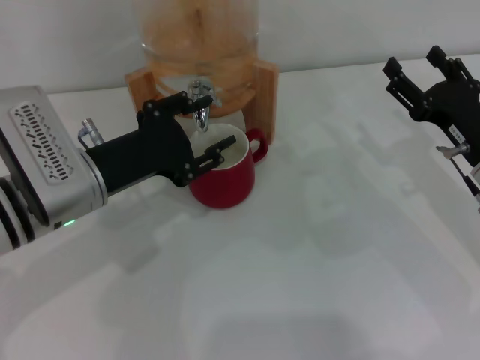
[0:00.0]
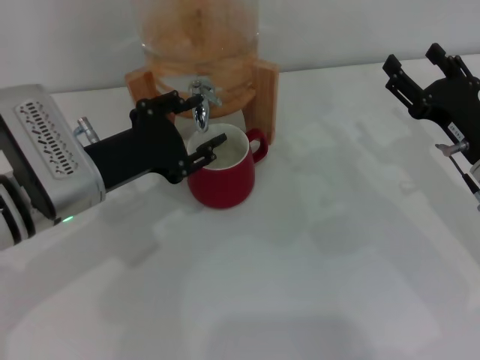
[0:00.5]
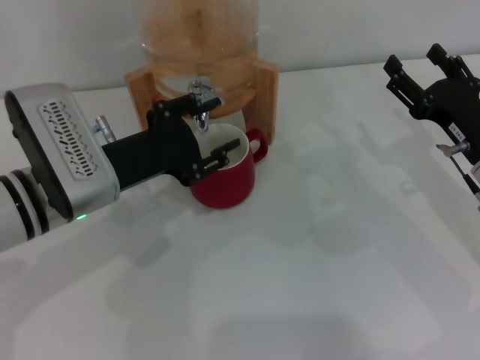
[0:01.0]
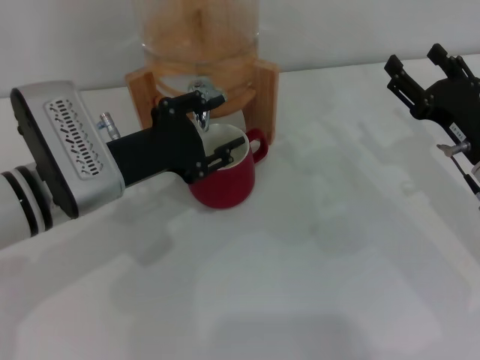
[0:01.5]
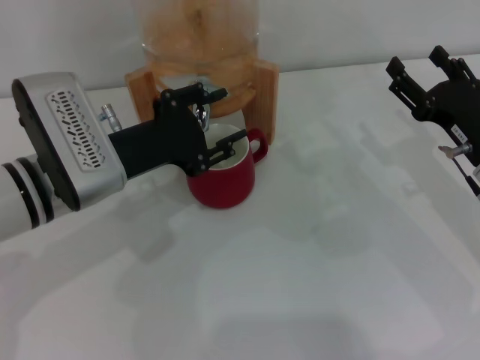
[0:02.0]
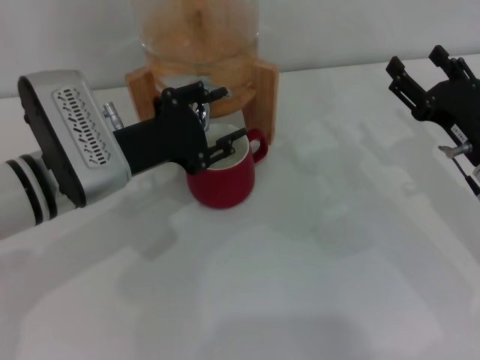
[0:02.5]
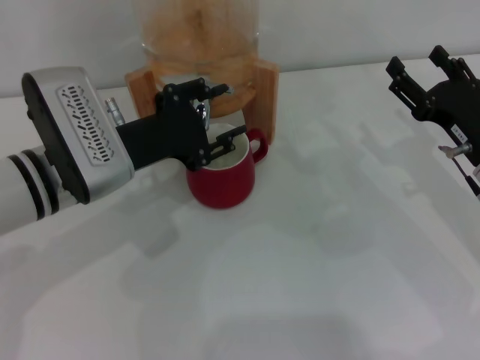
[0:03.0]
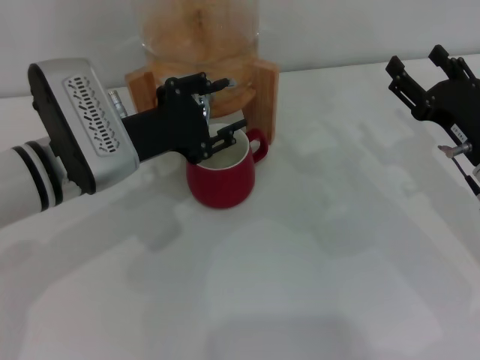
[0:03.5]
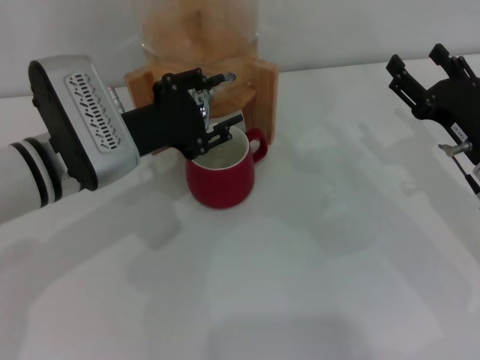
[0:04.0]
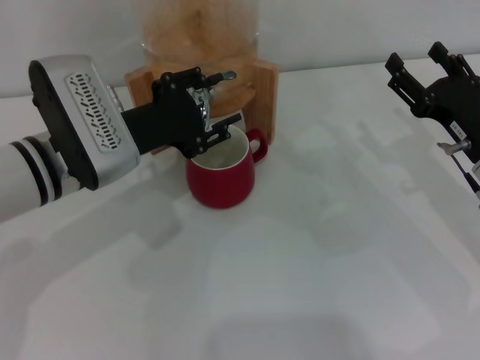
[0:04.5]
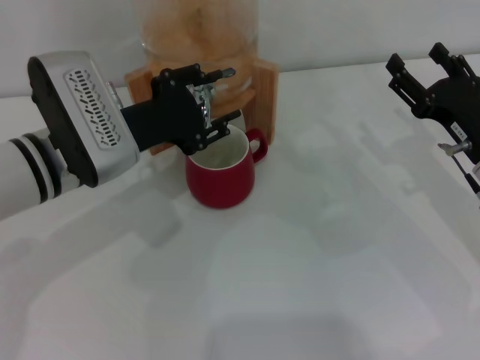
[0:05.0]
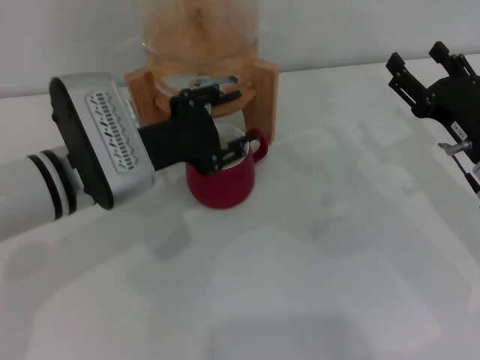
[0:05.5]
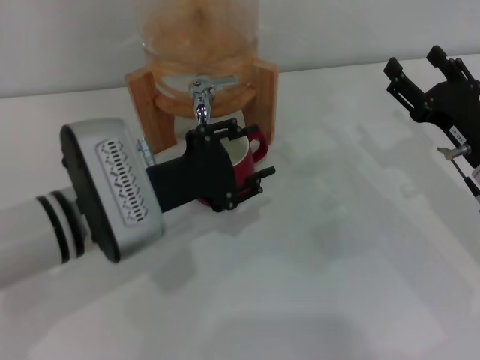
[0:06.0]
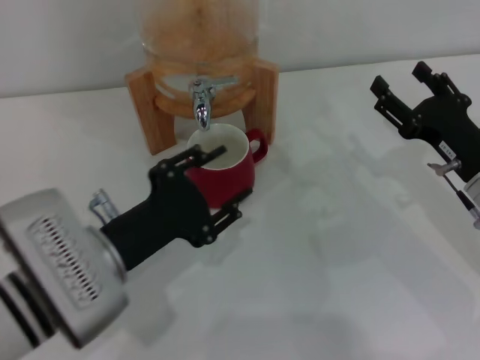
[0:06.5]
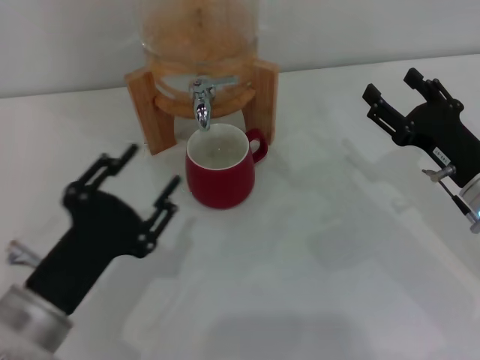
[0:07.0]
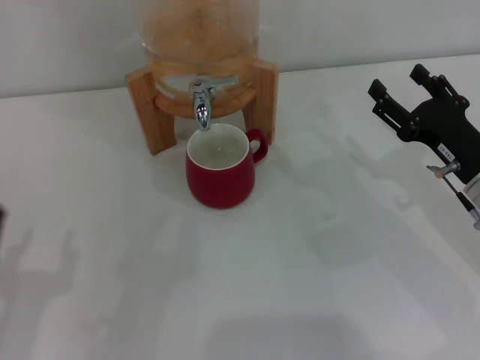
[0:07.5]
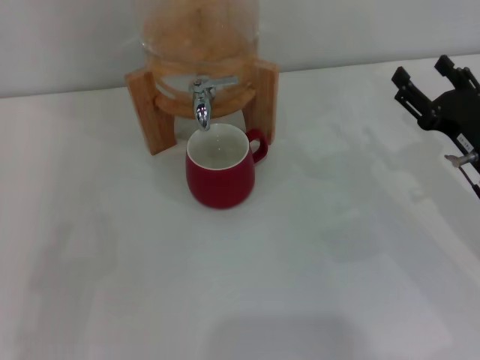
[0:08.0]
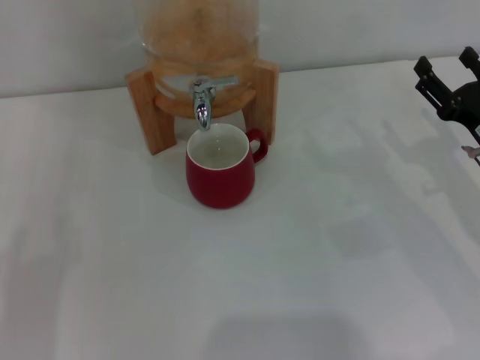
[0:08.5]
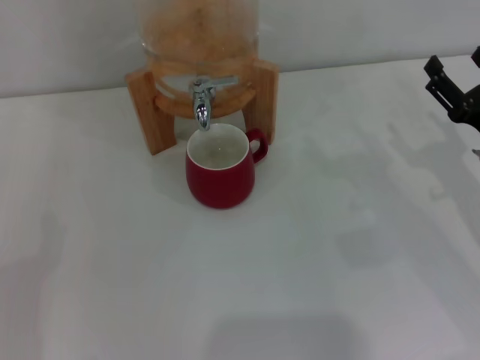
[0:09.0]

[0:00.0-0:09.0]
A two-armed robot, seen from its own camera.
Task of the whole recording: the right gripper pick up the red cup and place it horizontally under the faucet, the left gripper turn on the faucet to fill the cup, and then turn off the faucet.
Step, 0:00.0 to 0:06.0: Close the dispenser valve with the left gripper.
0:00.0 to 0:04.5: The grippers make only small movements.
0:04.5 to 0:07.0: The left gripper goes some 15 cm backward.
0:07.0 to 0:09.0: The left gripper heads to the left, covering roughly 15 cm, and opens.

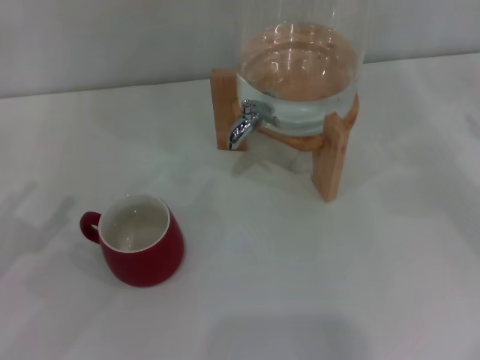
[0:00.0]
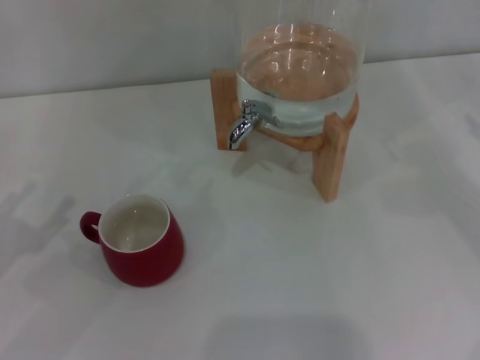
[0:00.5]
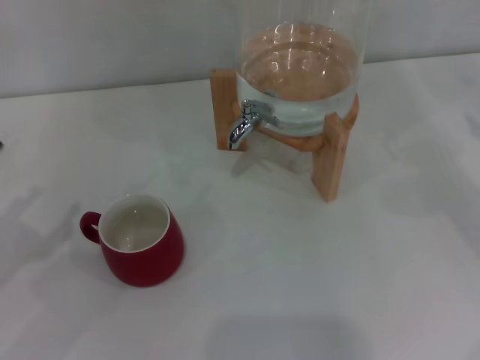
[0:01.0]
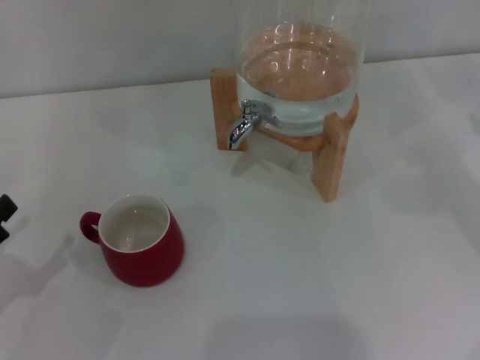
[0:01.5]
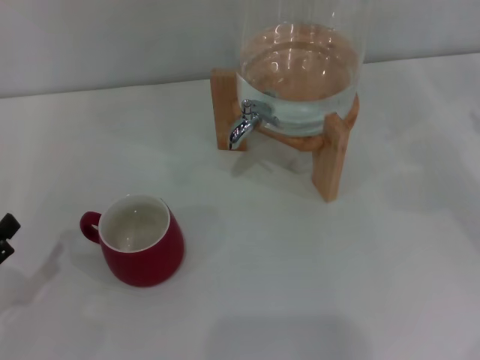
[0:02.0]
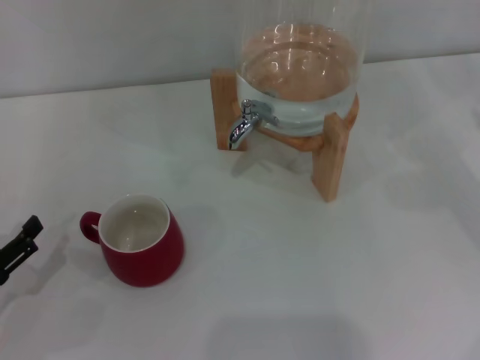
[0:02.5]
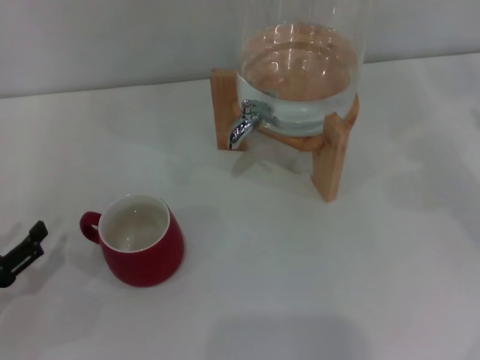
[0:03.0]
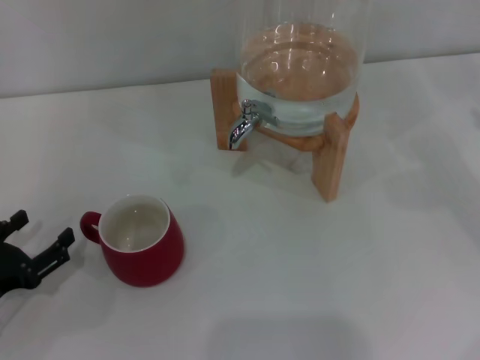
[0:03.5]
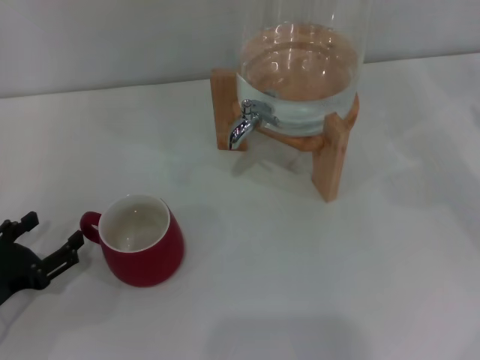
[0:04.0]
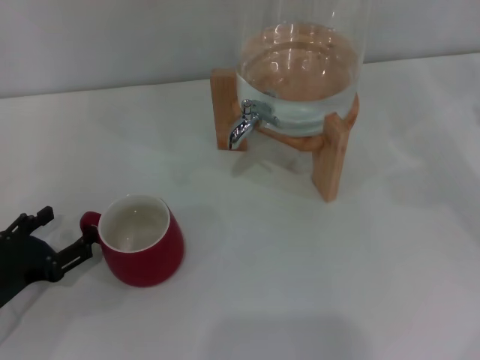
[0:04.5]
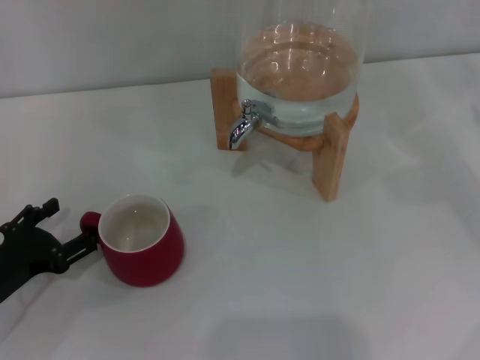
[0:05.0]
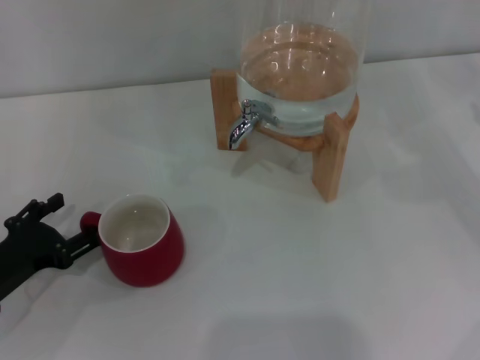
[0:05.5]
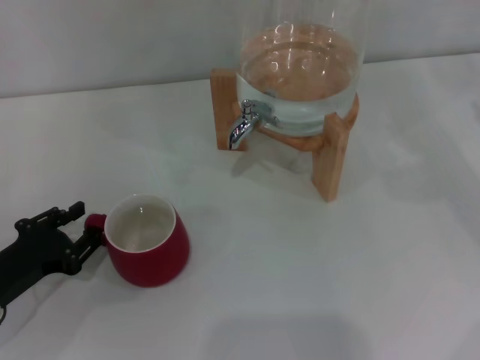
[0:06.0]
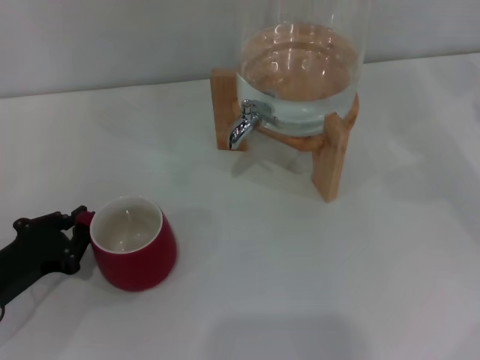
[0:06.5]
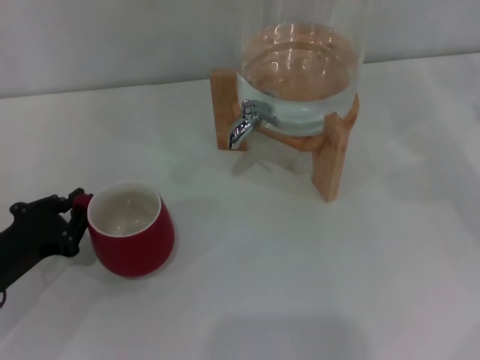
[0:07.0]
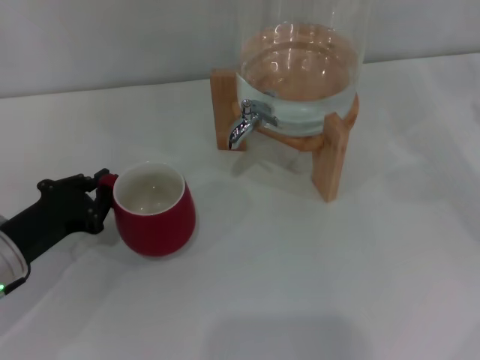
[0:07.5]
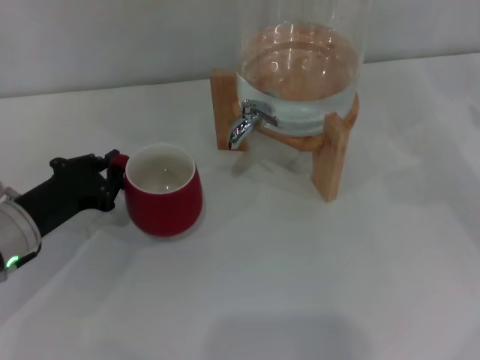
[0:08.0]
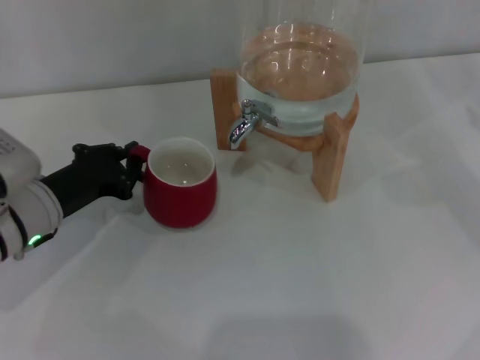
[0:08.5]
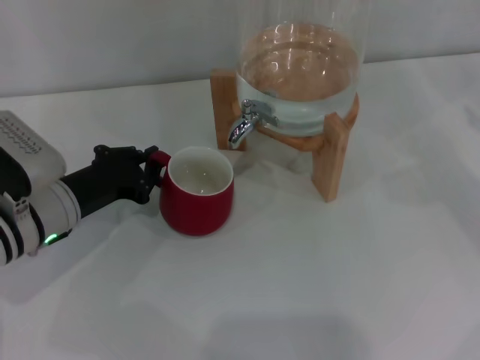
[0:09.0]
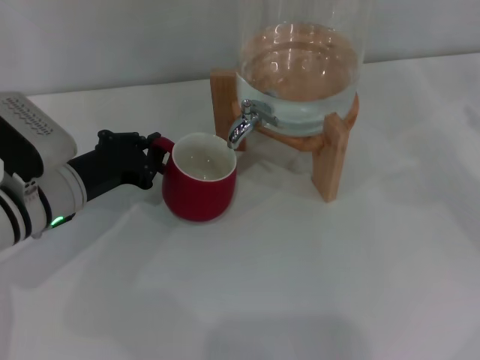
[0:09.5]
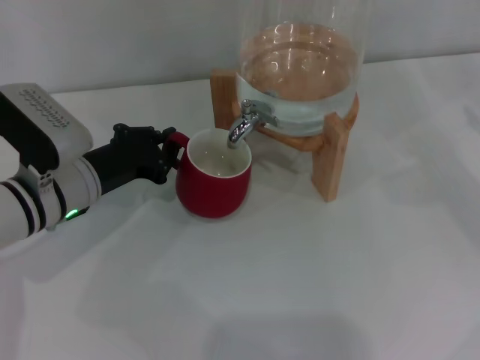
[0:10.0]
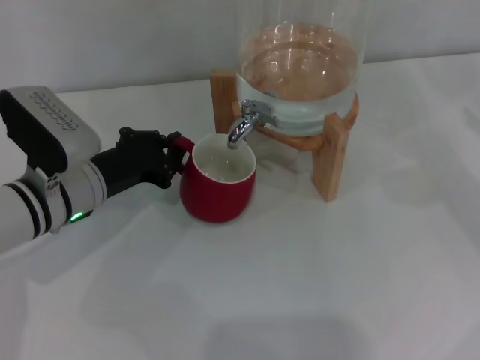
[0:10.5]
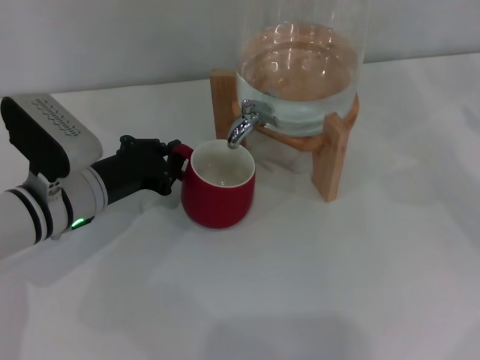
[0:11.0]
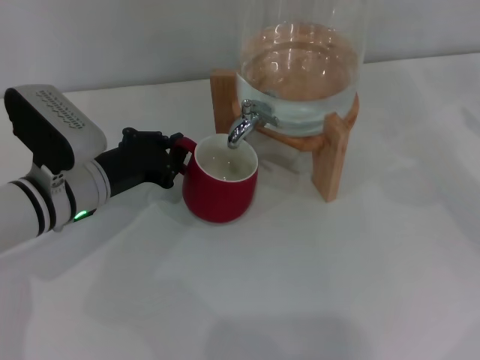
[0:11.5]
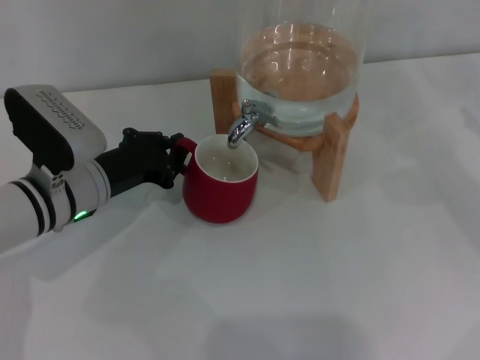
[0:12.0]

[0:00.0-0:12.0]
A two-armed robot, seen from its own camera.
Task of the whole recording: the left gripper pick up the red cup and place it horizontally under the faucet, the right gripper turn on the faucet to fill the cup, and then turn off the faucet.
0:02.0 to 0:04.0: The left gripper shifts by about 5 cm.
0:04.0 to 0:06.0: The grippers stay close to where they were, moving slightly.
0:06.0 to 0:08.0: The left gripper heads forward, covering roughly 5 cm, and closes its fingers.
0:08.0 to 0:10.0: The left gripper goes some 5 cm to the right.
0:10.0 to 0:12.0: Neither gripper changes place.

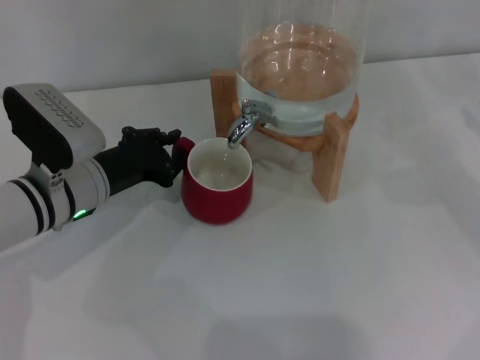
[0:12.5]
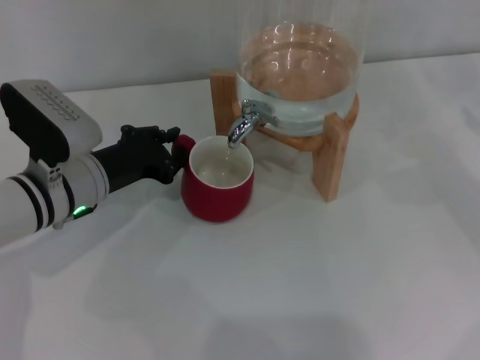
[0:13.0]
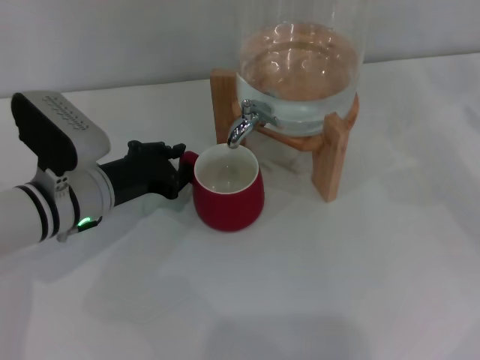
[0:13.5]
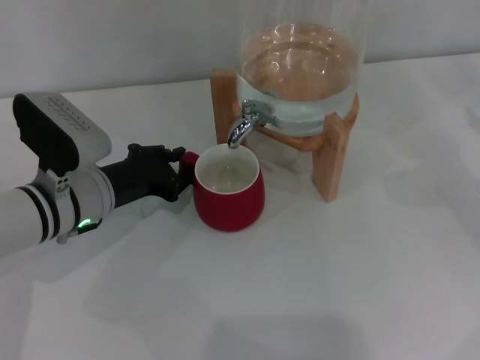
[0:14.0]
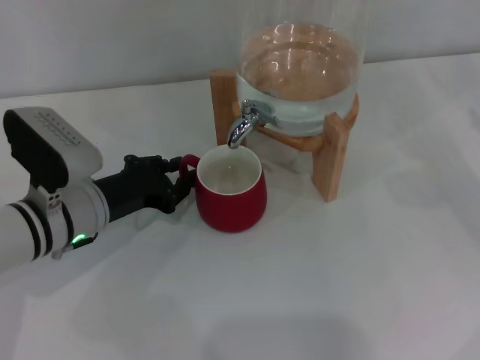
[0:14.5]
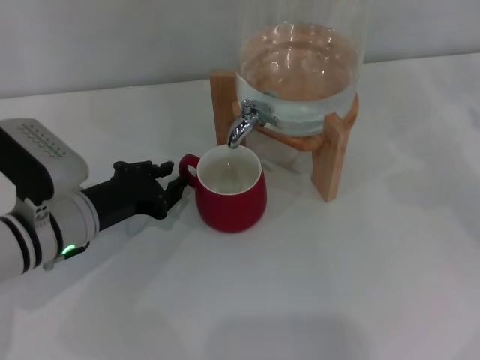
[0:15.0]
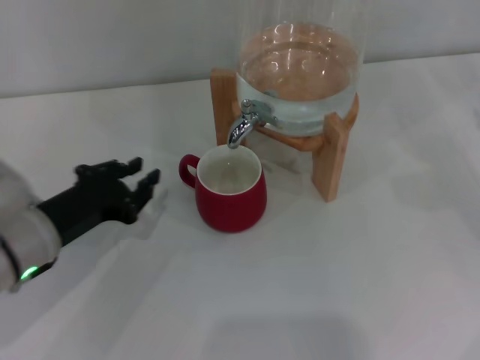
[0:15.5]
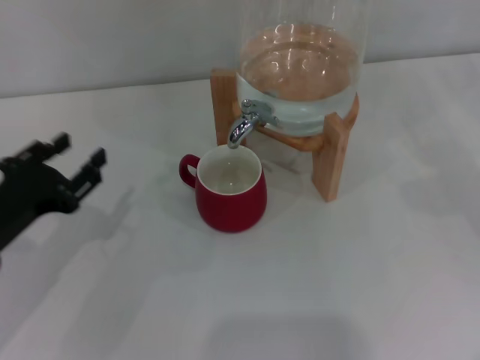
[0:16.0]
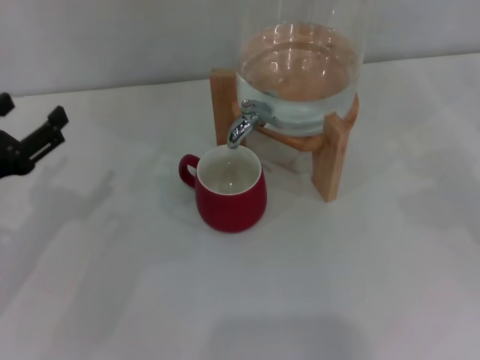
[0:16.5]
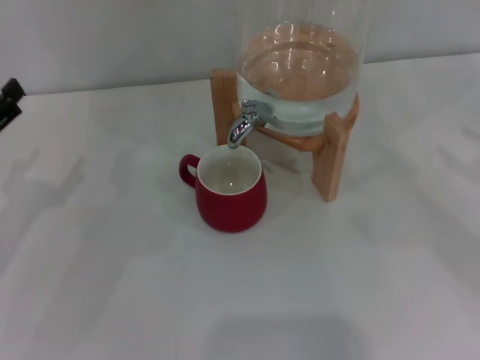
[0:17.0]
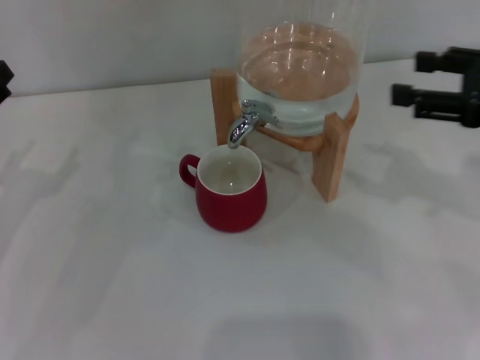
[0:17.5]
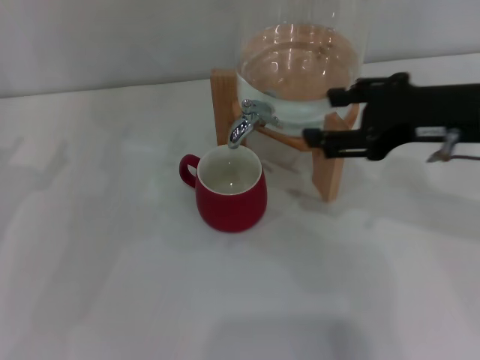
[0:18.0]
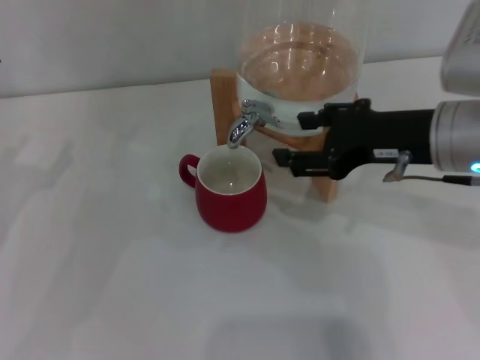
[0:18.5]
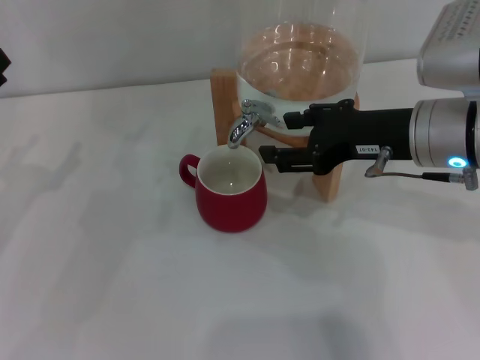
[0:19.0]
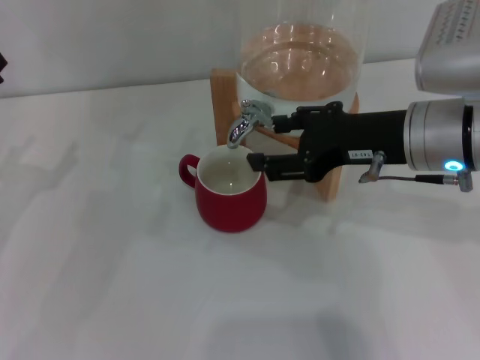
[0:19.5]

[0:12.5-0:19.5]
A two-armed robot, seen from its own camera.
Task of the whole recording: the left gripper pick up the red cup and place it horizontally under the faucet, the right gripper turn on the faucet to fill the cup, and then turn off the faucet.
Step, 0:12.5 to 0:14.5: Move the cup beneath the water dispenser nozzle with the left gripper.
0:12.5 to 0:14.5: The grippers make only small movements.
0:14.5 to 0:16.0: The left gripper moves to the left and backward, approximately 10 cm.
0:16.0 to 0:17.5: The left gripper changes place by approximately 5 cm, and opens. Meanwhile the right gripper heads to the left and upward, covering approximately 15 cm.
0:17.5 to 0:19.5: The right gripper travels to the left by roughly 10 cm.
